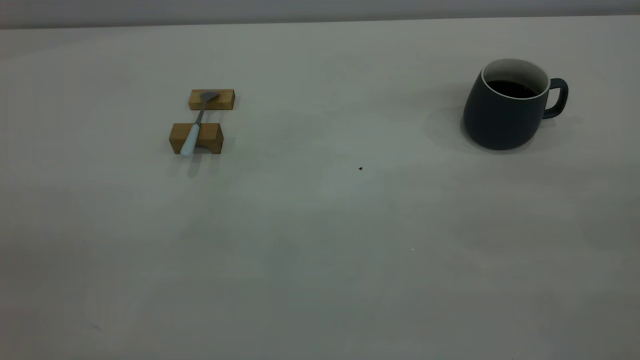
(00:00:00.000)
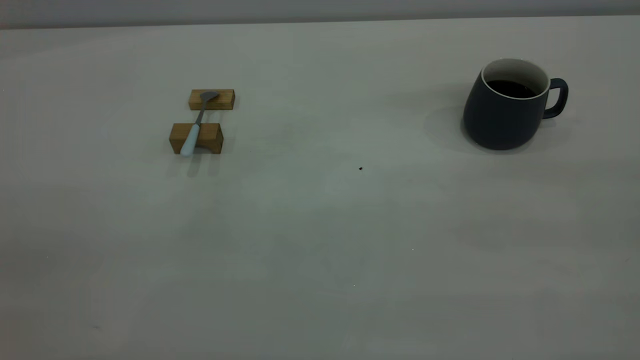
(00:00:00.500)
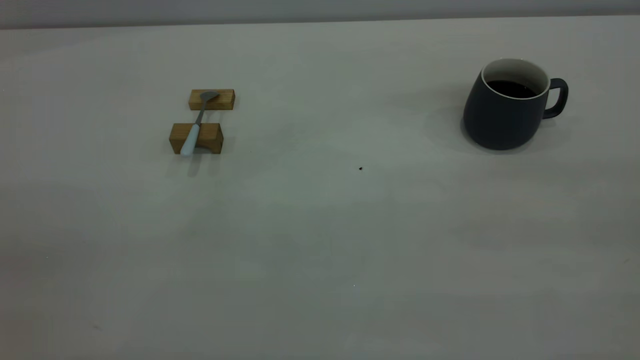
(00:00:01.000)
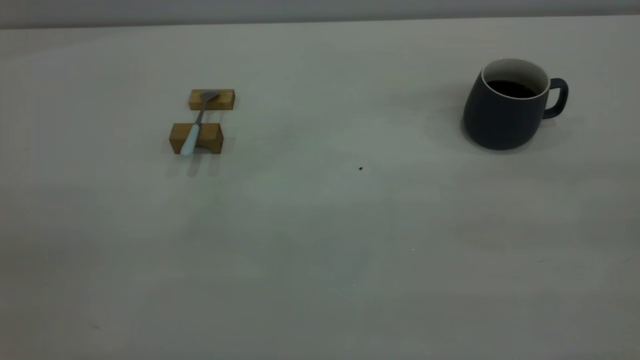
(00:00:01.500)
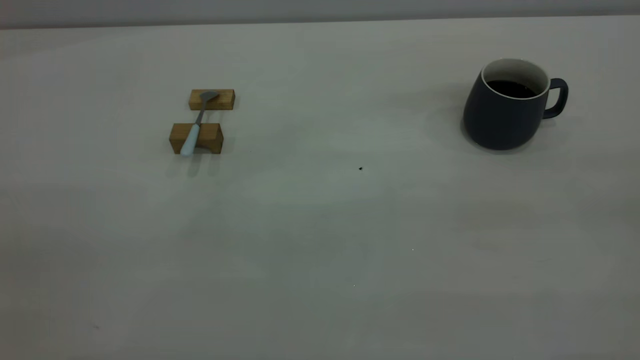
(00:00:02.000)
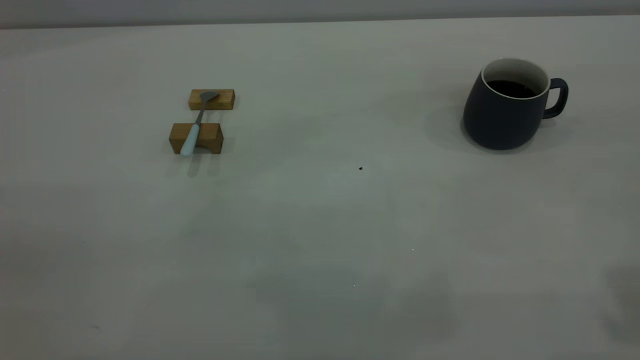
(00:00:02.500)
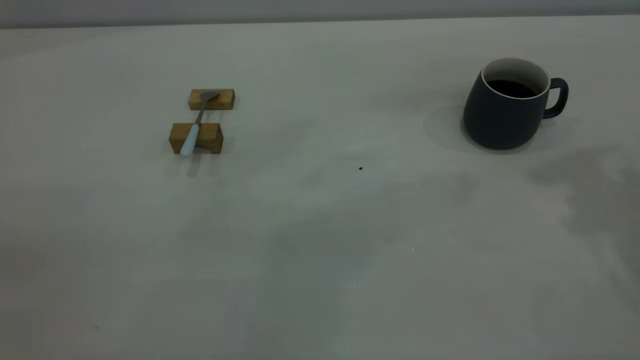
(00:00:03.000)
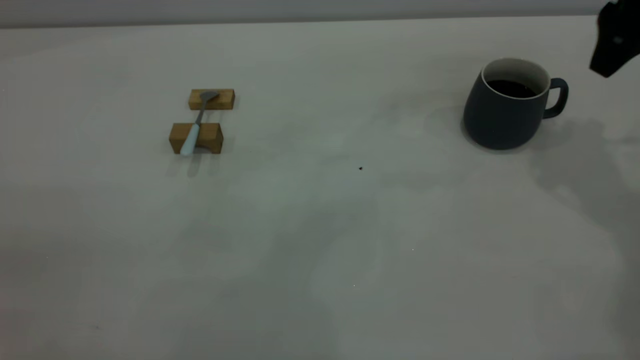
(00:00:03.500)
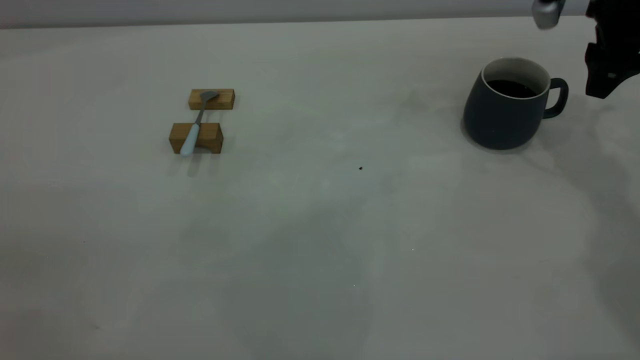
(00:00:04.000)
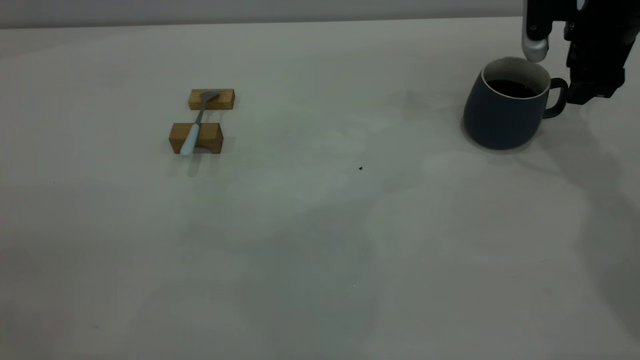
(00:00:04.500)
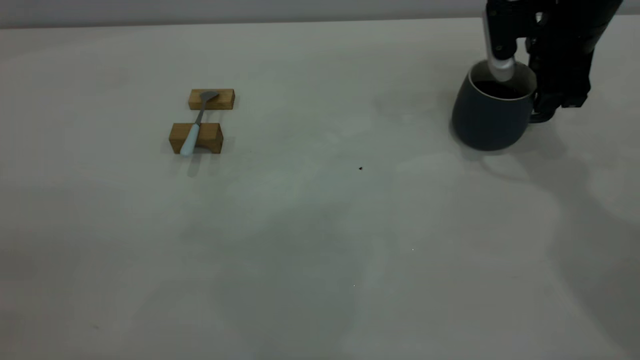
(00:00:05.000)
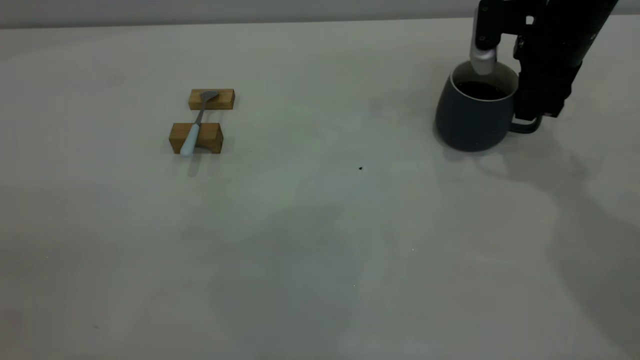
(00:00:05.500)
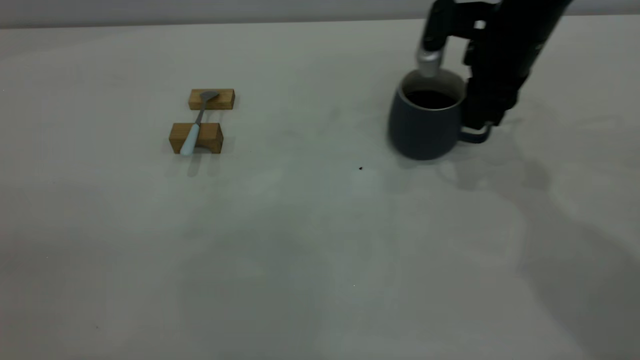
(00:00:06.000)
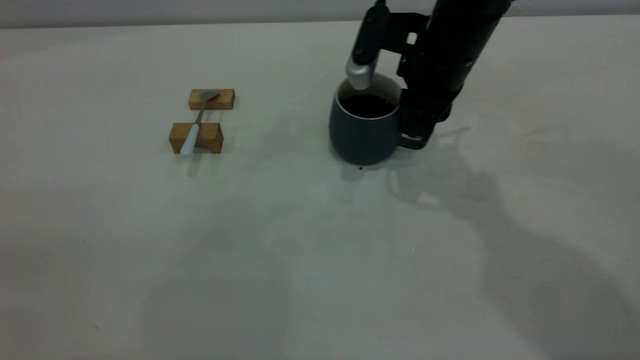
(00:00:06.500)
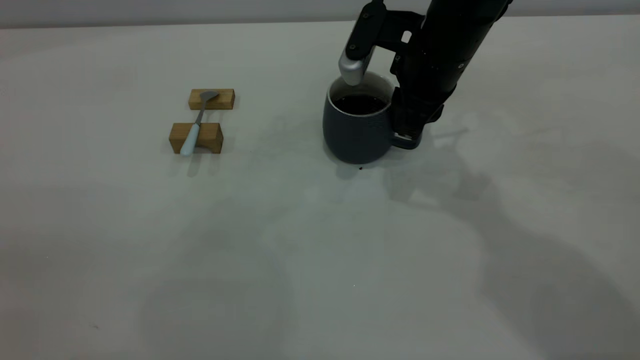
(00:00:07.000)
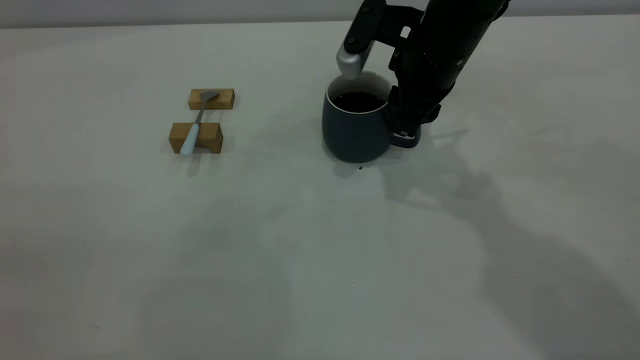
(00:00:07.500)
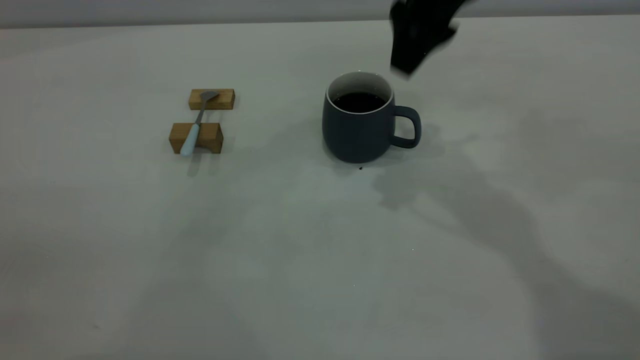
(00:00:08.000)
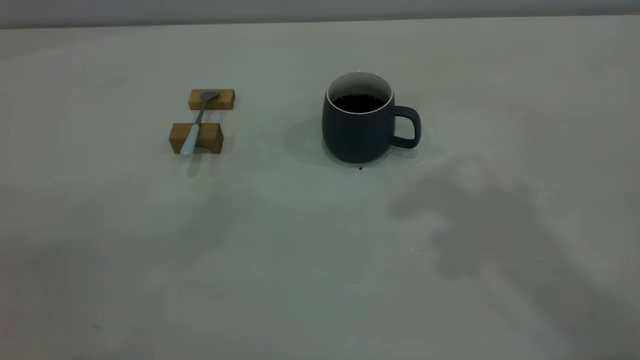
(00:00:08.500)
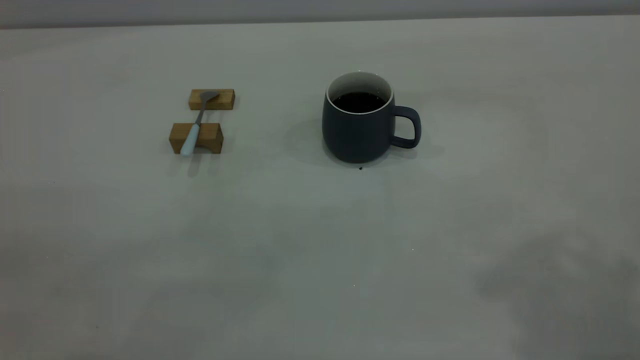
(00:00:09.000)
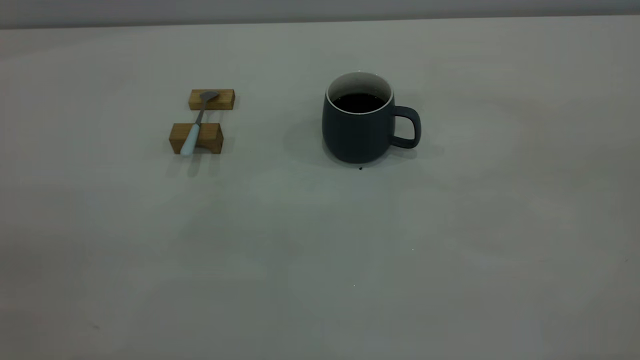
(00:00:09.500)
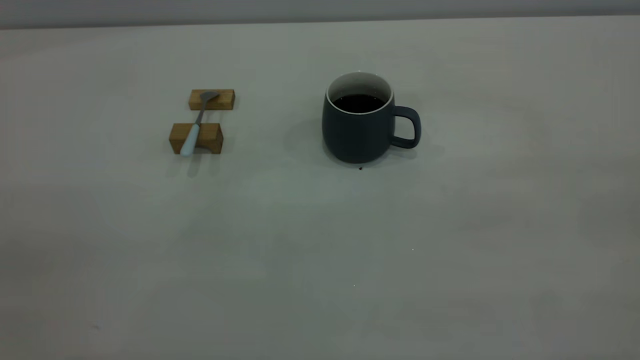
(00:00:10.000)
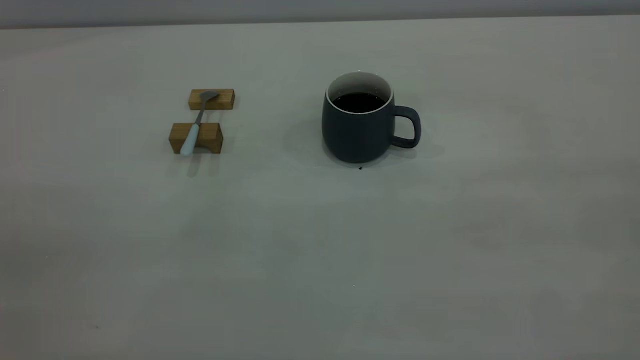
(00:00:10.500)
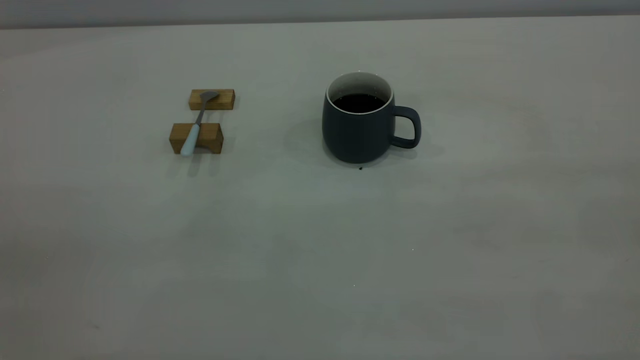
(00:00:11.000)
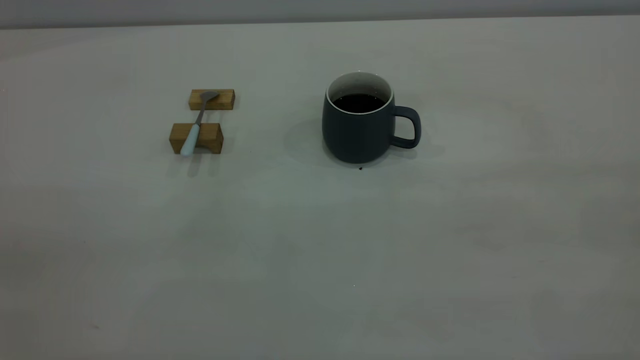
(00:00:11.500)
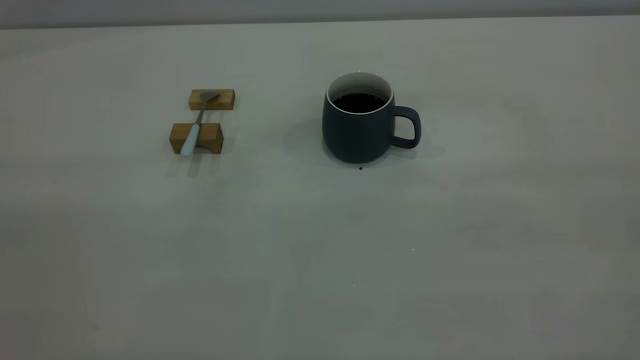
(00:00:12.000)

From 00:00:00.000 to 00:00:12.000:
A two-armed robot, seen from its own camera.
Step, from 00:00:00.000 to 00:00:07.500: Move the cup with coffee to the center of view.
From 00:00:02.000 to 00:00:04.000: The right gripper heads forward and downward, covering roughly 50 cm, and opens up.
From 00:00:04.000 to 00:00:06.000: The right gripper moves to the left, approximately 10 cm, and closes.
From 00:00:06.000 to 00:00:08.000: The right gripper shifts about 15 cm upward and to the left, and opens its fingers.
From 00:00:08.000 to 00:00:10.000: The right gripper travels backward and to the right by approximately 40 cm.

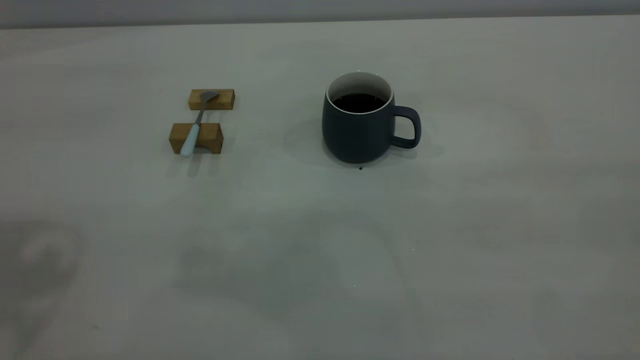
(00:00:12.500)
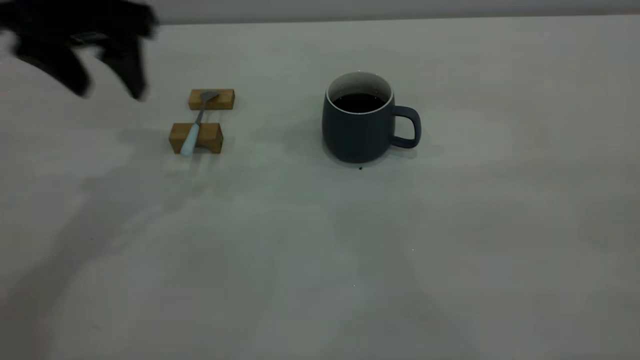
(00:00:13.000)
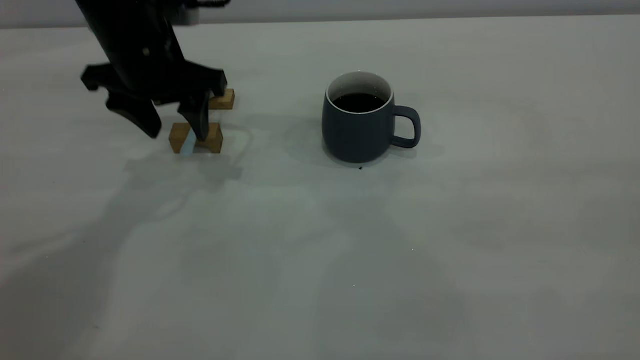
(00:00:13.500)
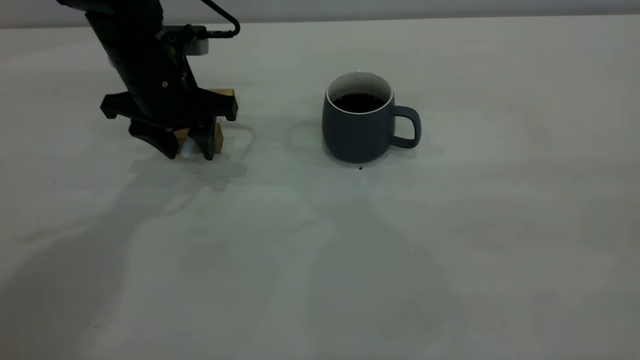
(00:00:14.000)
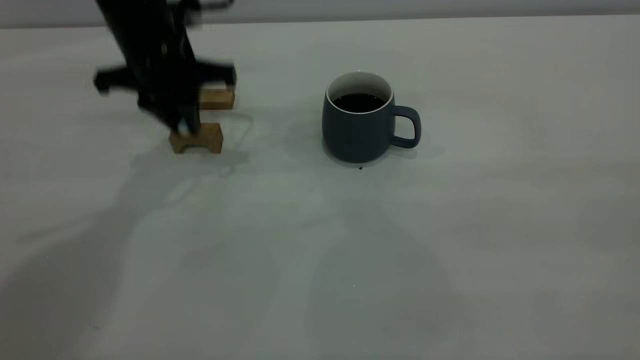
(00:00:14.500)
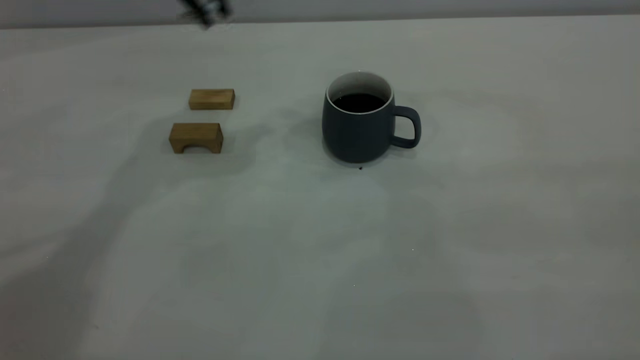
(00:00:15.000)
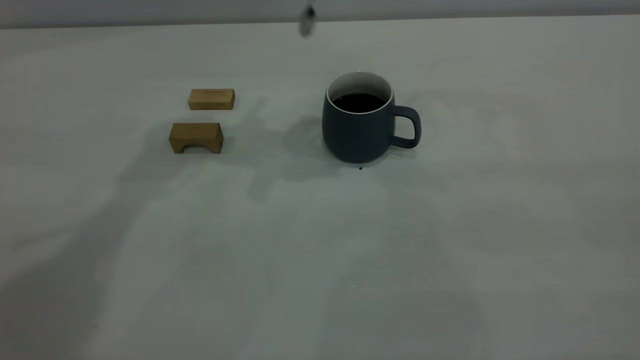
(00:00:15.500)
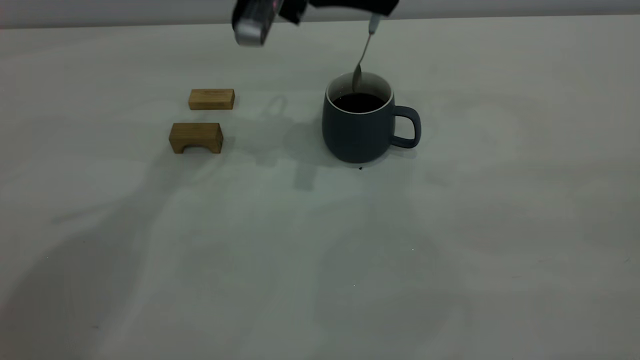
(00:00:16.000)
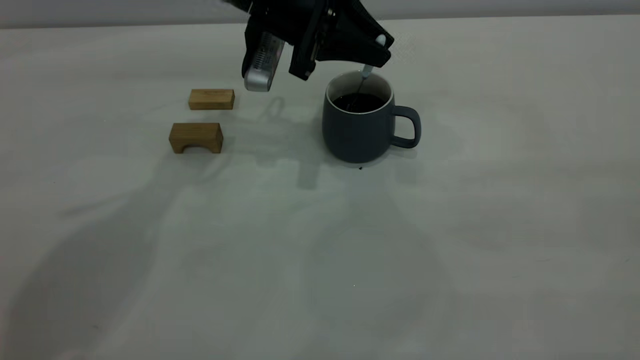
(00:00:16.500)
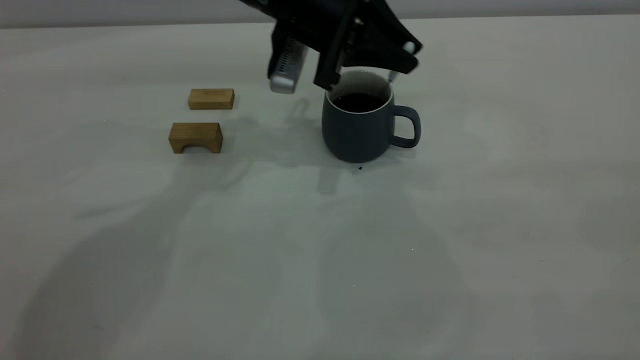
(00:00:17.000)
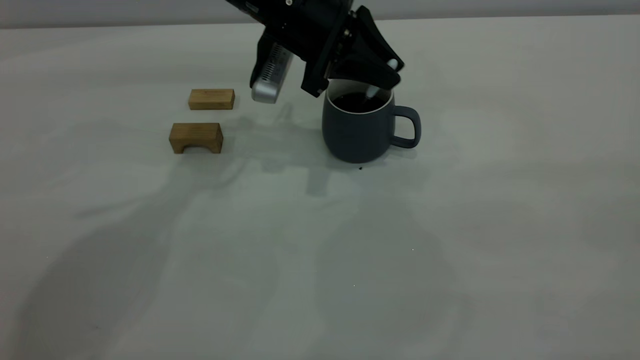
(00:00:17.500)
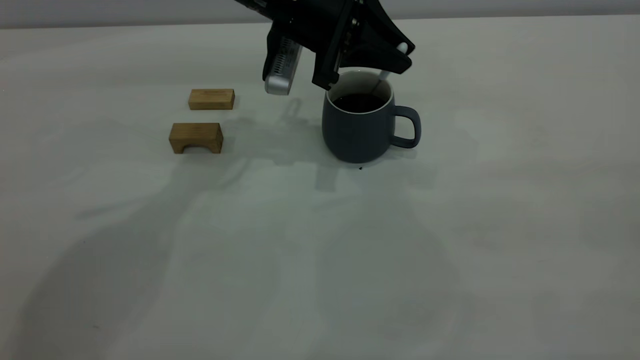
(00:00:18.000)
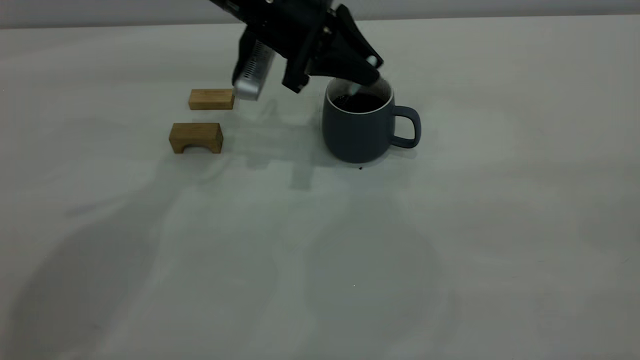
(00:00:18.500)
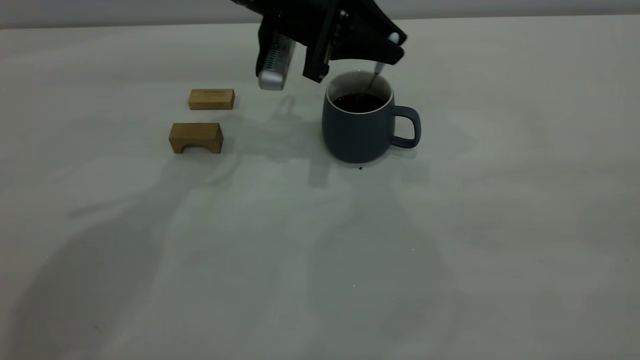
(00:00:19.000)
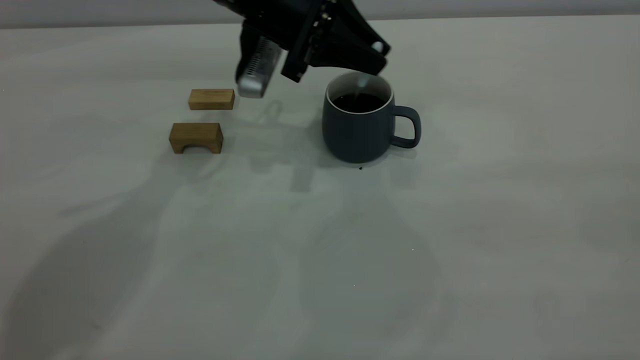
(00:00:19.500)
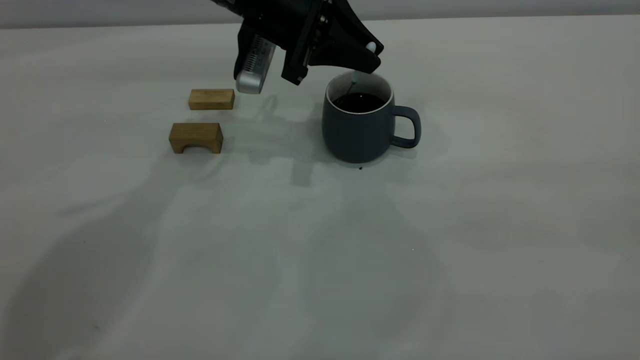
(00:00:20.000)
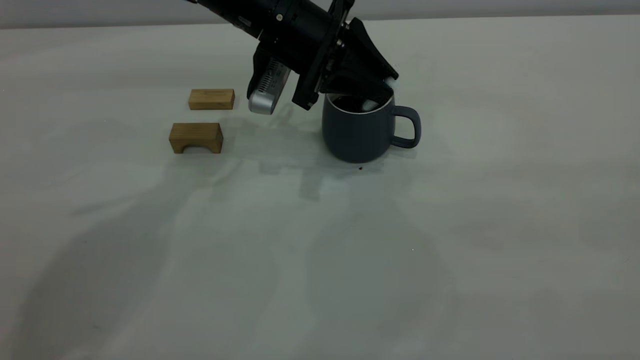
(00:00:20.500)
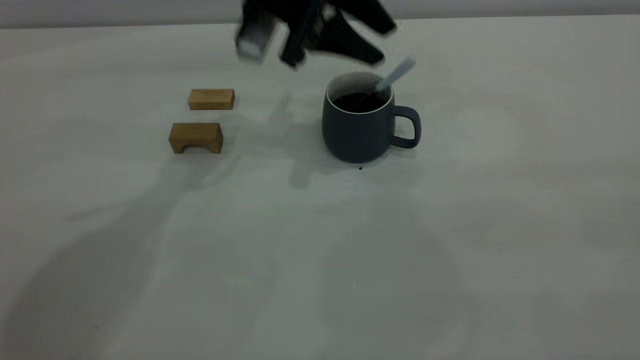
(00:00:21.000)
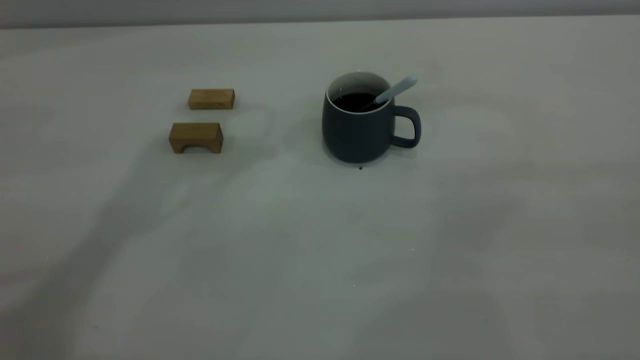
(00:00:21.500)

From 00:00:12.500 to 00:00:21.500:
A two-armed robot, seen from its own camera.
Step, from 00:00:12.500 to 00:00:14.500: Pick up the spoon.
Step, from 00:00:15.000 to 00:00:21.000: Stir the coffee in the cup.
From 00:00:12.500 to 00:00:14.500: The left gripper goes approximately 30 cm downward, forward and to the right, and closes up.
From 00:00:14.500 to 00:00:17.000: The left gripper goes some 15 cm to the right, and travels upward and back again, some 15 cm each way.
From 00:00:17.000 to 00:00:19.500: The grippers make only small movements.
From 00:00:19.500 to 00:00:21.500: The left gripper goes about 20 cm upward, and opens.
